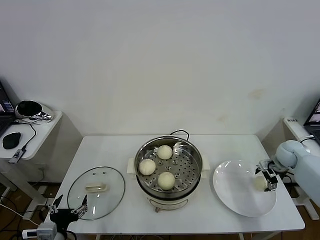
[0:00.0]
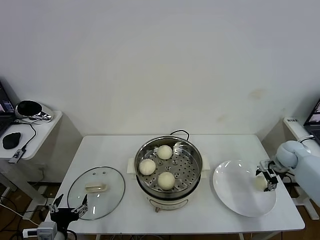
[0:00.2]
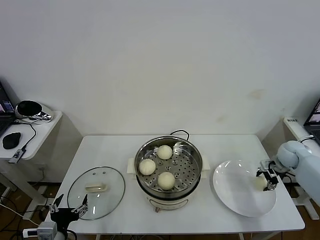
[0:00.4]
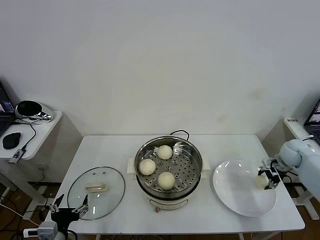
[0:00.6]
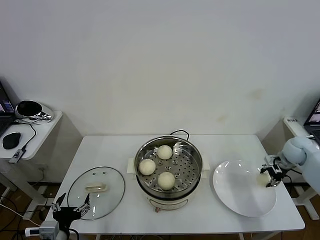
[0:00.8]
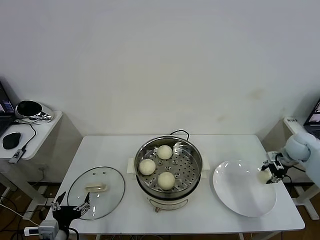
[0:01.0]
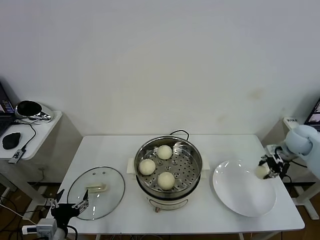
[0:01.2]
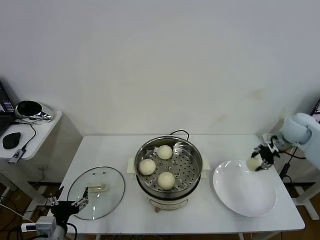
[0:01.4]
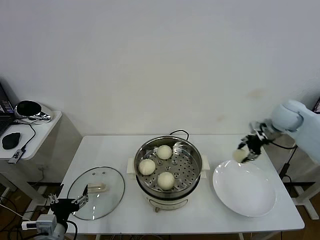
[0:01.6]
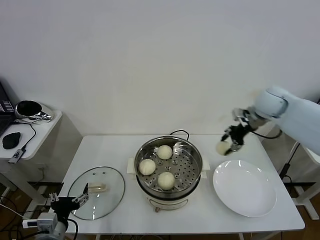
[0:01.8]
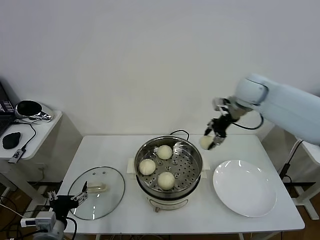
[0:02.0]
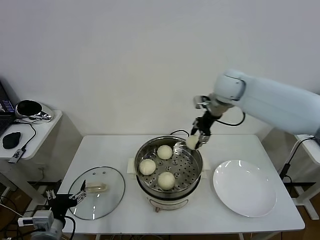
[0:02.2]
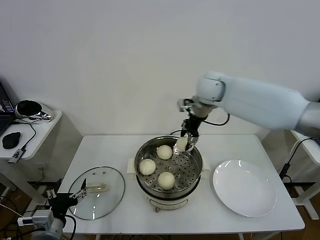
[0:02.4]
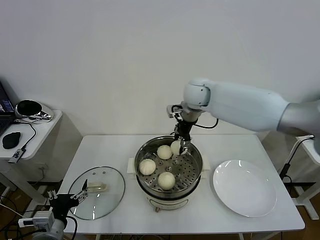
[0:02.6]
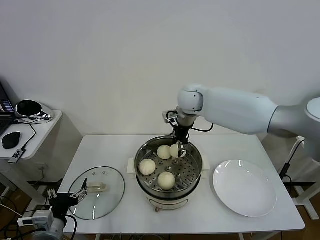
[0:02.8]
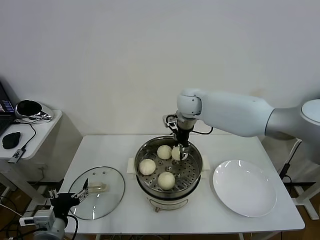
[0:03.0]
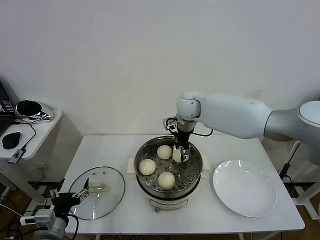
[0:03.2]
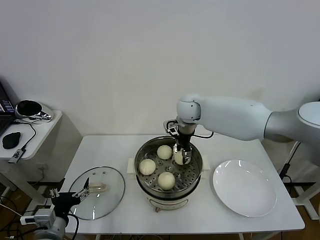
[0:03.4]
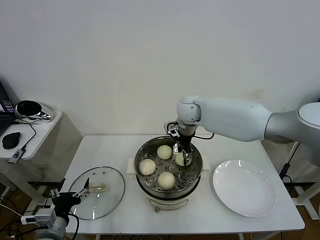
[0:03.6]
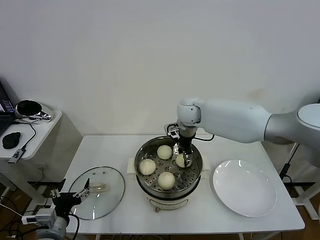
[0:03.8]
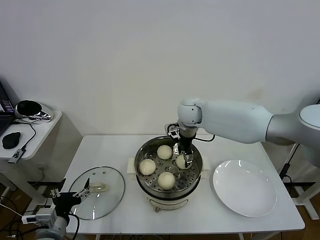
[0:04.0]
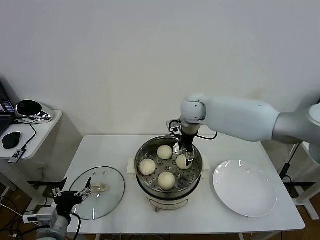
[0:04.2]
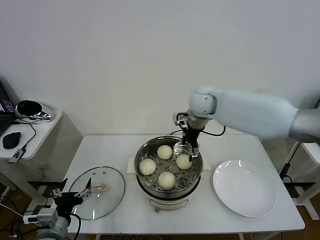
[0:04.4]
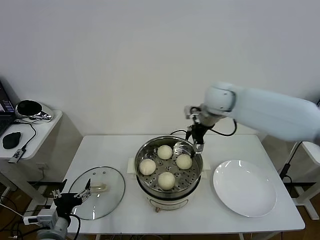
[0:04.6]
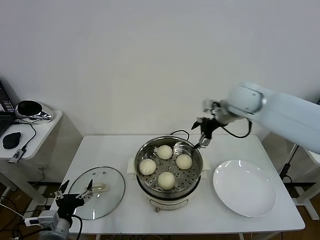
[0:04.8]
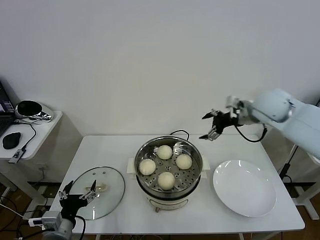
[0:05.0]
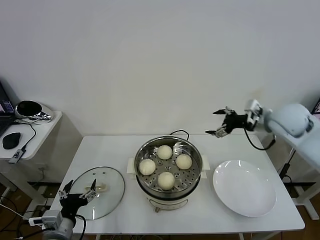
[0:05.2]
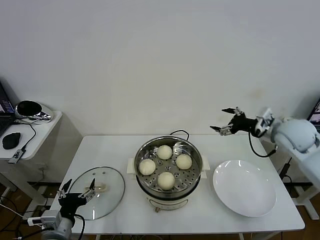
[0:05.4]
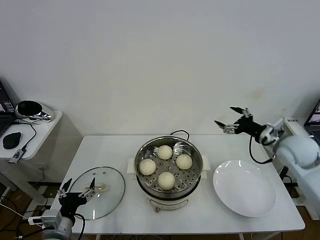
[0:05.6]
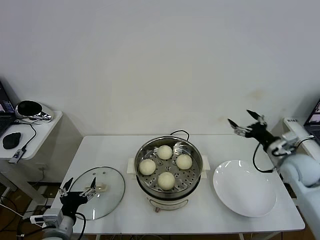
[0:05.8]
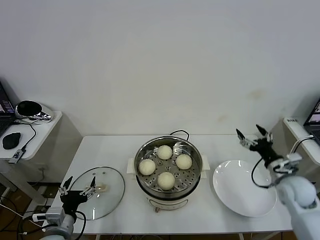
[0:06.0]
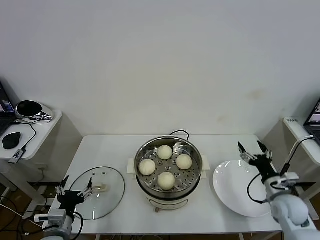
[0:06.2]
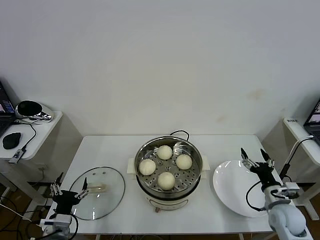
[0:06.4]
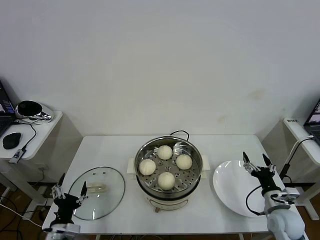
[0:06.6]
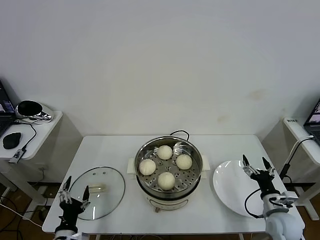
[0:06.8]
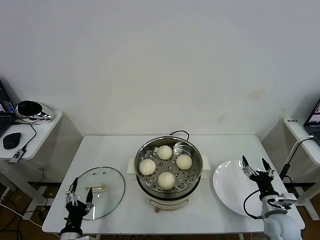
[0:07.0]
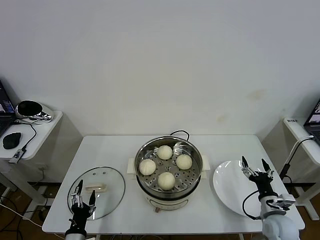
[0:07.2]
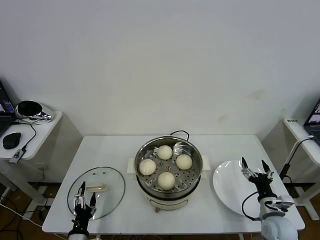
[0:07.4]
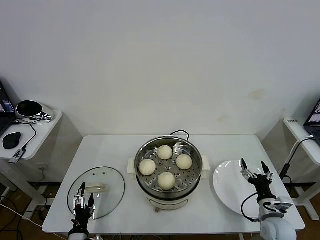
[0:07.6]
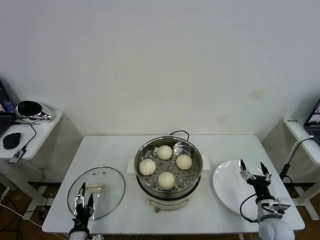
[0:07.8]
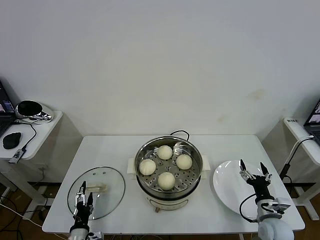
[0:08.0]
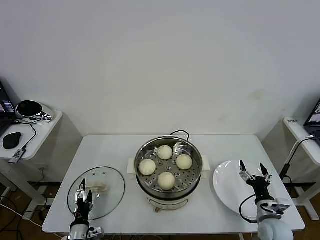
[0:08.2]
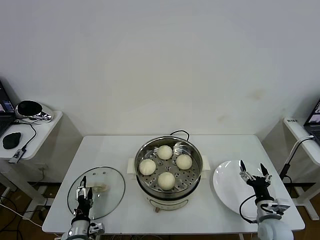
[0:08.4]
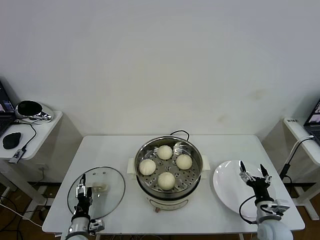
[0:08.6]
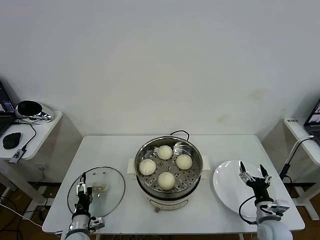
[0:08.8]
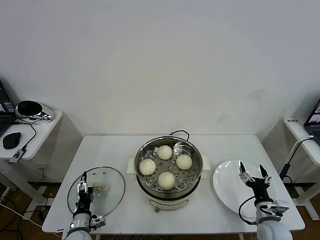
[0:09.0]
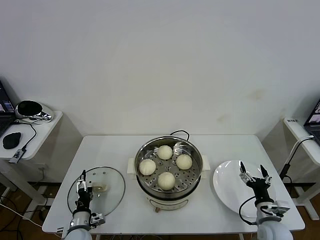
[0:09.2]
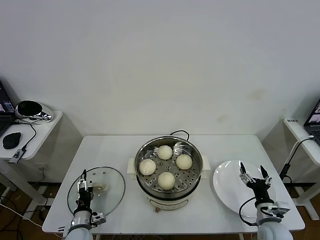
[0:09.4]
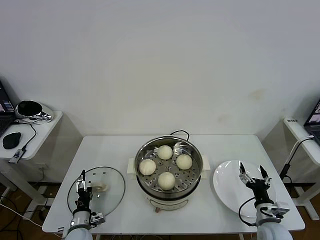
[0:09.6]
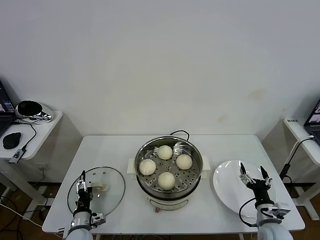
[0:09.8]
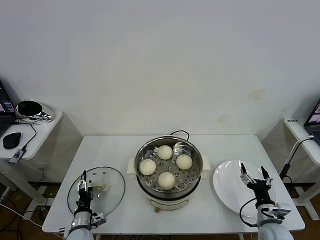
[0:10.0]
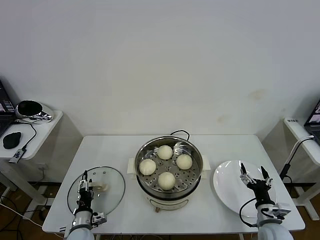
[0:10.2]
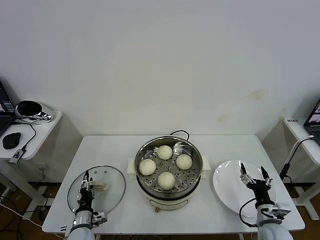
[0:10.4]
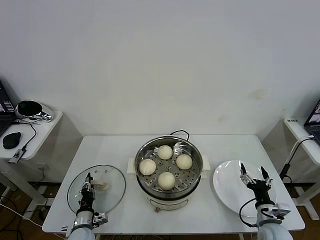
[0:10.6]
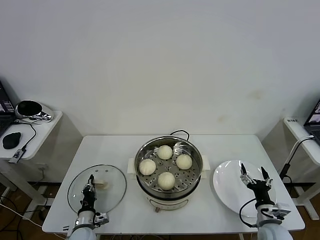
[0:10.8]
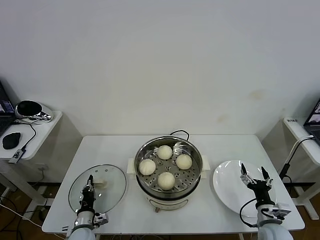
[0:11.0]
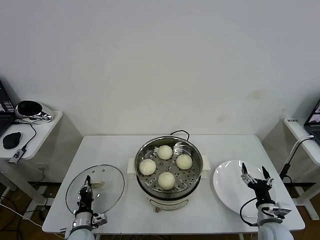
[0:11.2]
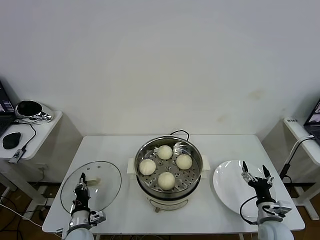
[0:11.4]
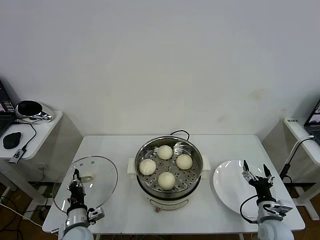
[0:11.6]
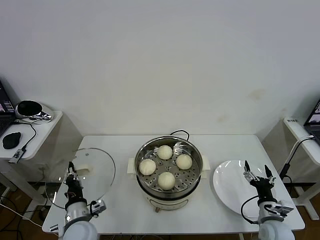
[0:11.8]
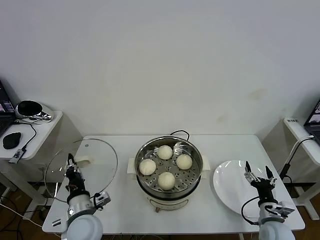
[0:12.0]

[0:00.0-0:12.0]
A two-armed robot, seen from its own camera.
Task of the whole recording: take steamed baozi put them in steamer then cover it.
Step, 0.8 to 4.2 s: Place the baozi on the steamer with right gripper.
Step, 4.4 to 11.0 s: Grasp the pot lid with left gripper.
0.0 to 1.6 s: The right gripper moves upward and to the left, roughly 20 cm, and closes.
1.6 to 3.0 s: The right gripper travels to the left by roughly 30 cm.
3.0 to 4.4 s: The right gripper opens.
4.4 to 6.0 s: The right gripper goes some 40 cm to the right, backward and downward.
6.0 to 7.6 s: The left gripper is displaced downward by some 10 cm; the right gripper shifts about 15 cm downward and backward.
7.6 to 9.0 s: The left gripper moves forward, roughly 10 cm.
9.0 to 10.4 s: The grippers stay close to where they were, moving slightly.
10.4 to 12.0 s: The left gripper heads upward and to the right, covering some 15 cm, and closes up.

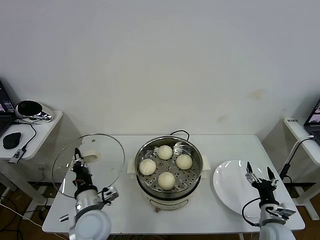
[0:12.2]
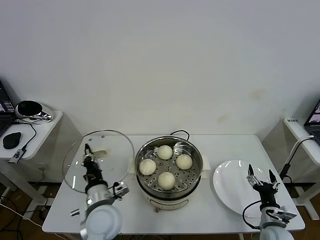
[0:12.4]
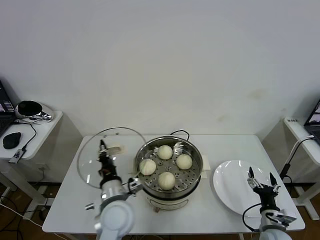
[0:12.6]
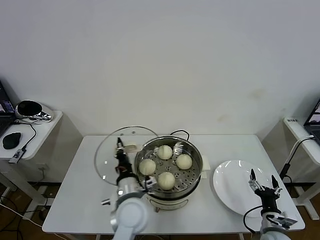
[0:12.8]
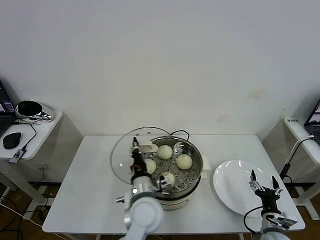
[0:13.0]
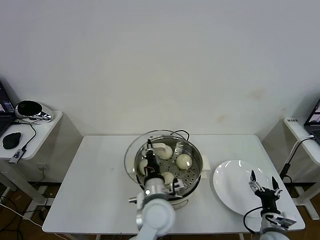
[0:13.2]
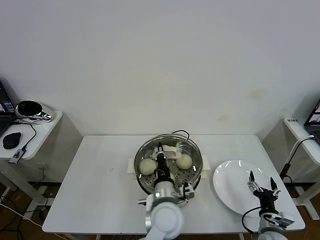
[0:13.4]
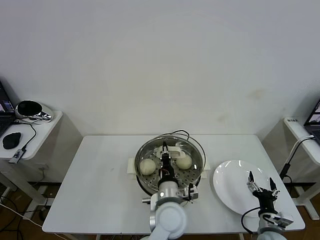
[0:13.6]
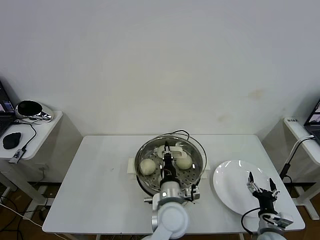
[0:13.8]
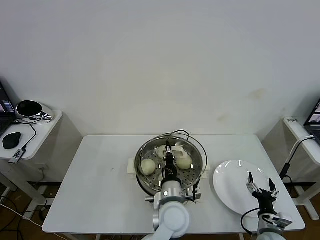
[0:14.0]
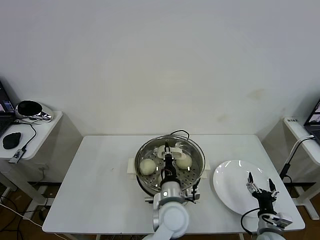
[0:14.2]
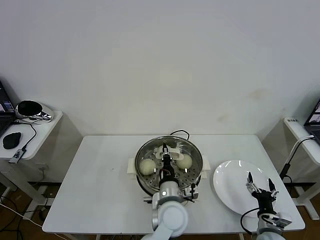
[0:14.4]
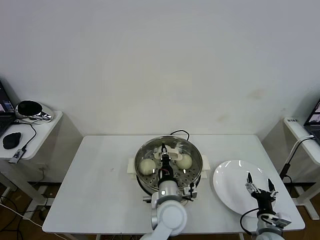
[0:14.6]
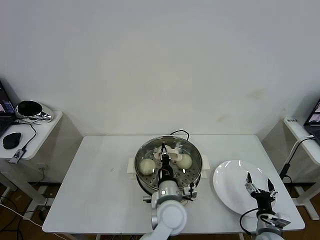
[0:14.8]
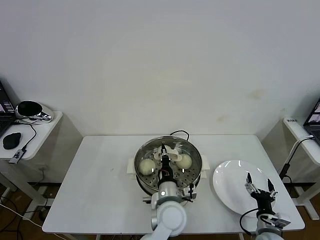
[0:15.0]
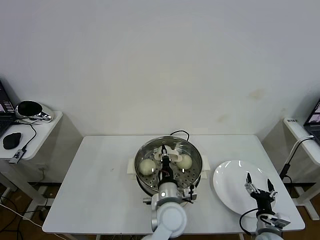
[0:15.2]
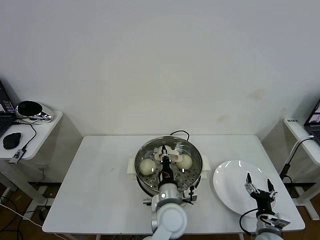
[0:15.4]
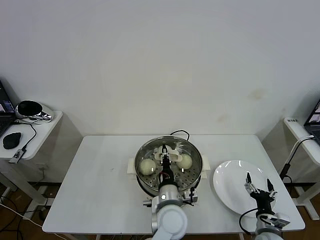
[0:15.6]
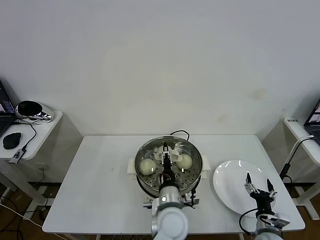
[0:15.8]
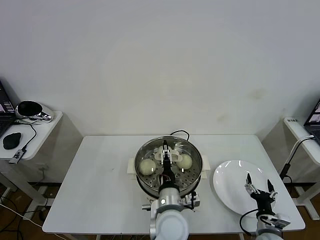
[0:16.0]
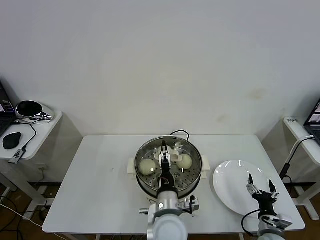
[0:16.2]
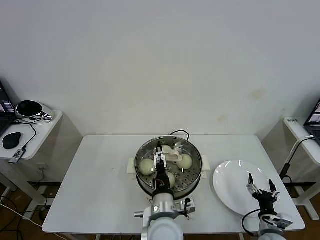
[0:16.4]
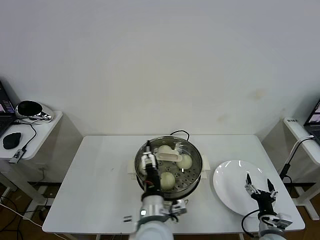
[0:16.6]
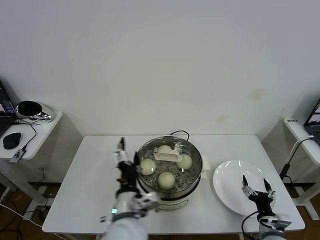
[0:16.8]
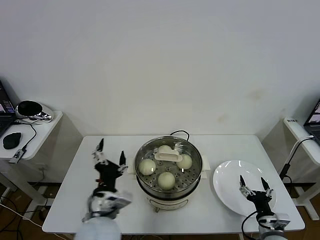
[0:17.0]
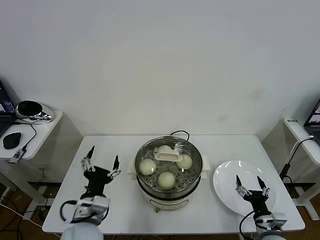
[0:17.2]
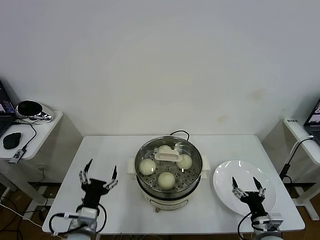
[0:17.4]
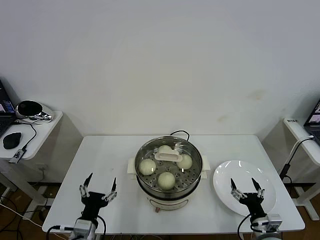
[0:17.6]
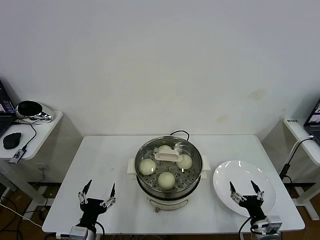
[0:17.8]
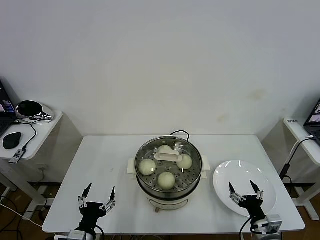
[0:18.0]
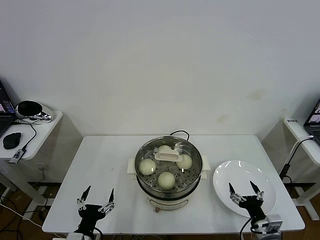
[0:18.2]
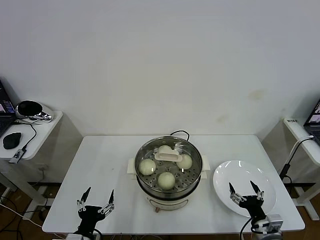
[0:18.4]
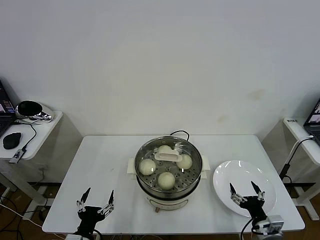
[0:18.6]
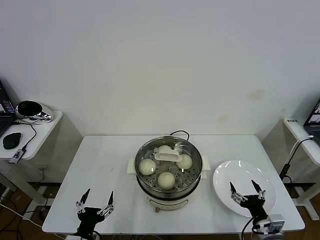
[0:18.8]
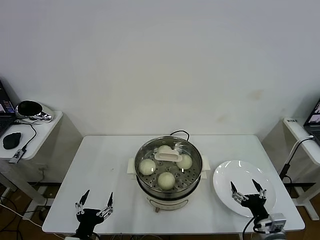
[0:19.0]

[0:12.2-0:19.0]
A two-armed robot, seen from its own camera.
Task of the whole recording: take steamed baozi put them in steamer then cover it.
Step, 12.2 to 15.8 s: Place the pot lid on the steamer with left gripper.
12.2 to 13.6 s: The left gripper shifts about 25 cm to the right.
13.6 to 15.0 s: The grippers make only small movements.
15.0 to 16.2 s: The left gripper opens its fingers.
16.2 to 17.6 s: The left gripper heads to the left, covering some 25 cm.
17.6 to 19.0 s: The left gripper shifts by about 5 cm.

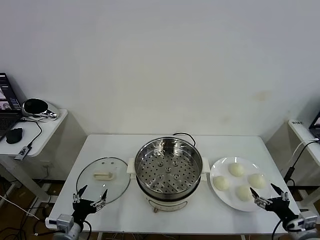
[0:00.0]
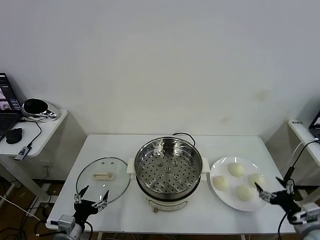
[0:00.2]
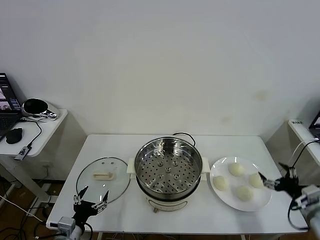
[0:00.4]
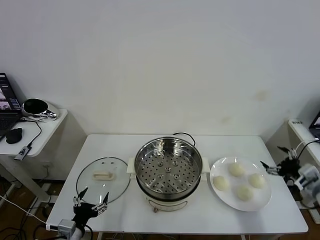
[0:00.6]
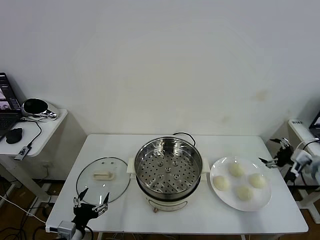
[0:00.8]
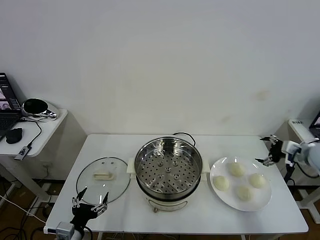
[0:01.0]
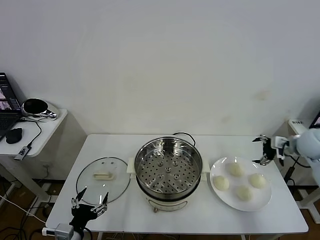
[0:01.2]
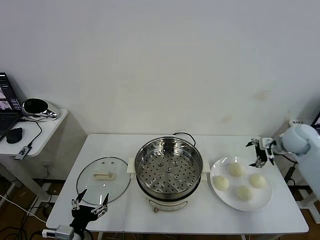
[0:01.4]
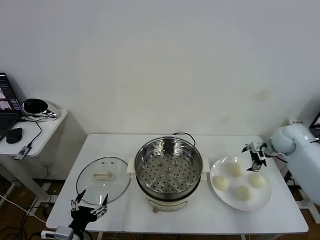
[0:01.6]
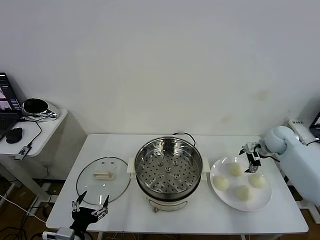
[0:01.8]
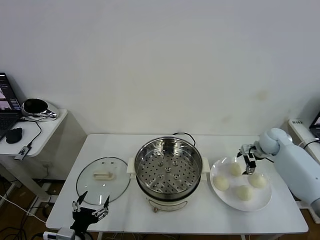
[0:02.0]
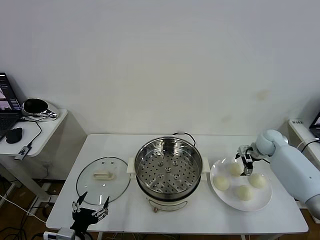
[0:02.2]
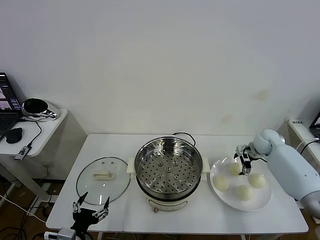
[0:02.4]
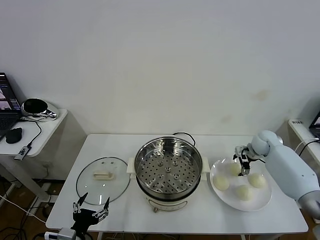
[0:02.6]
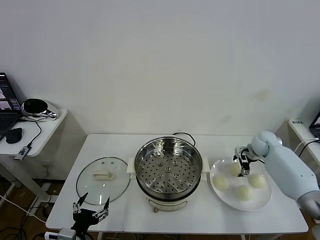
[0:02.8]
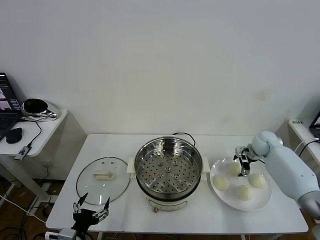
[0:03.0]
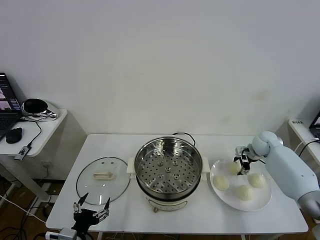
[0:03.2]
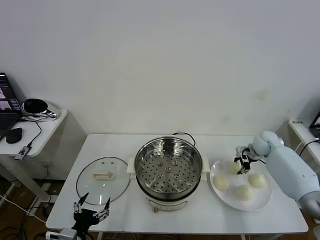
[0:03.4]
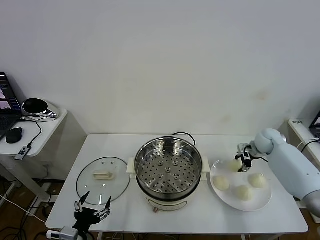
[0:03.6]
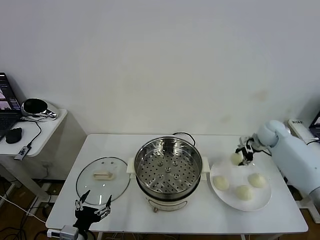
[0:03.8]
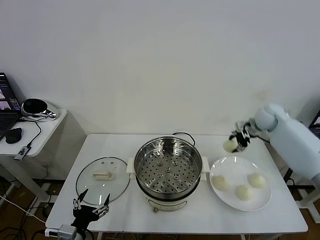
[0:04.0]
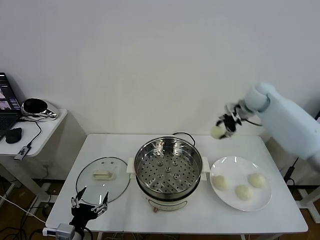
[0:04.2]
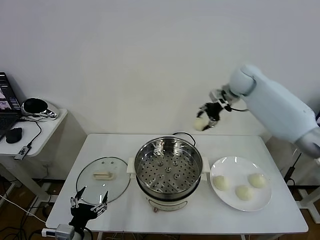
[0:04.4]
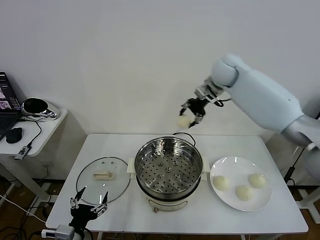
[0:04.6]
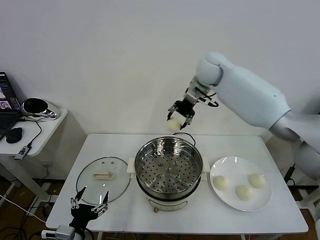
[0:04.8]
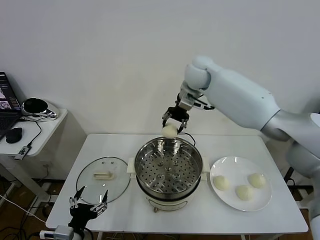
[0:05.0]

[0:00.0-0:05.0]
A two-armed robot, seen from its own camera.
Task of the whole recording: take steamed baozi put them in steamer then cover it.
Step, 0.0 to 3.4 s: Grasp the baozi in the plate with right gripper.
1.6 to 3.4 s: The right gripper moves some 5 cm, and closes its fingers.
3.4 to 5.0 s: The right gripper travels to the left and upward by roughly 40 cm.
